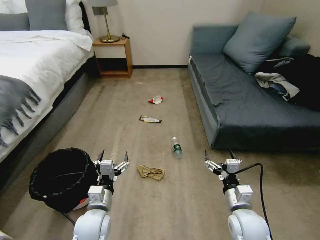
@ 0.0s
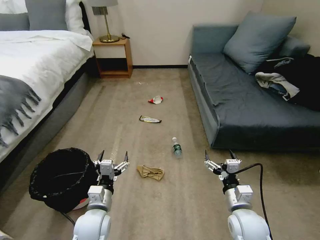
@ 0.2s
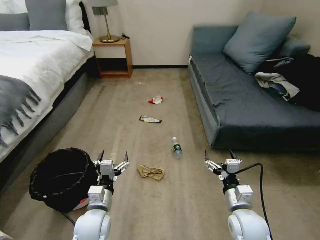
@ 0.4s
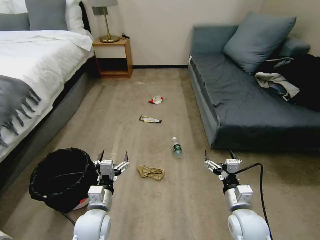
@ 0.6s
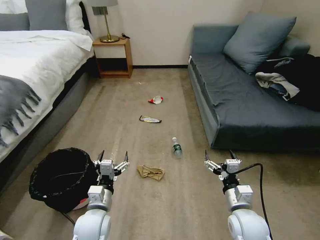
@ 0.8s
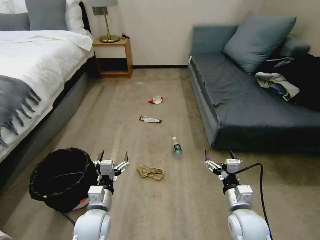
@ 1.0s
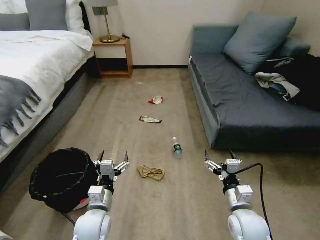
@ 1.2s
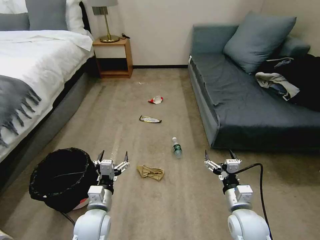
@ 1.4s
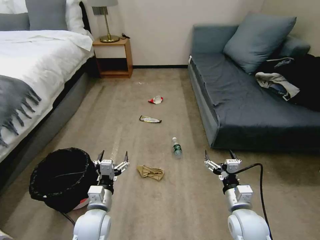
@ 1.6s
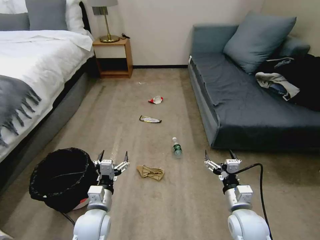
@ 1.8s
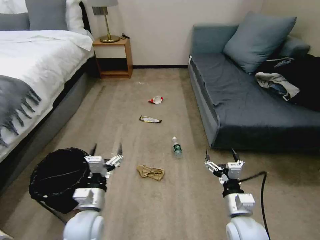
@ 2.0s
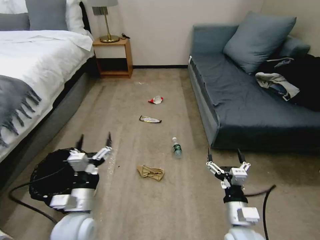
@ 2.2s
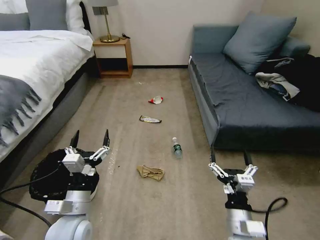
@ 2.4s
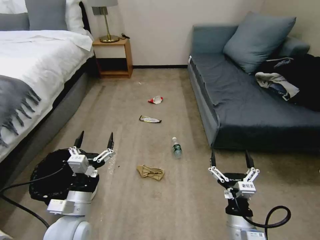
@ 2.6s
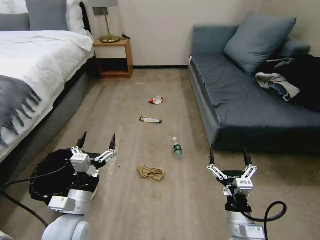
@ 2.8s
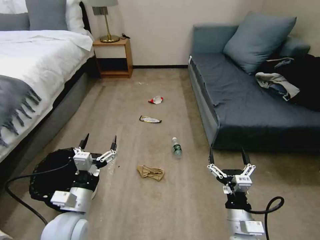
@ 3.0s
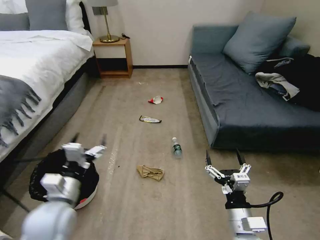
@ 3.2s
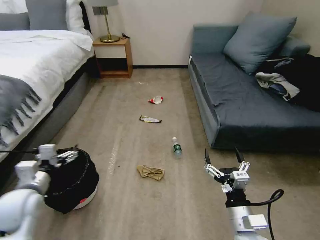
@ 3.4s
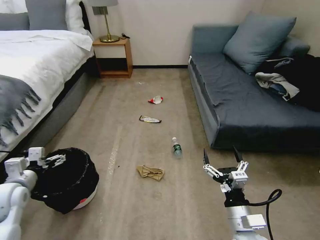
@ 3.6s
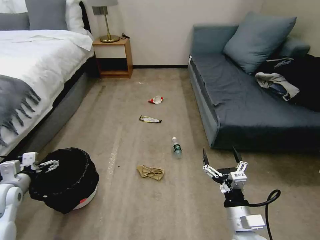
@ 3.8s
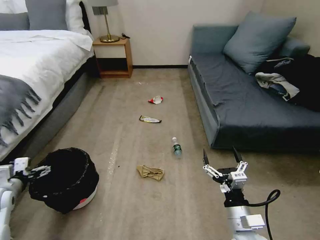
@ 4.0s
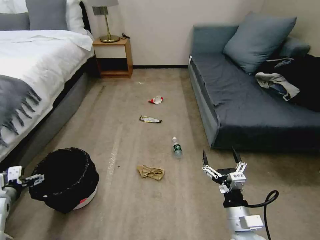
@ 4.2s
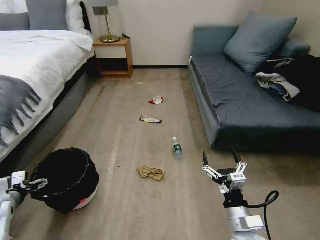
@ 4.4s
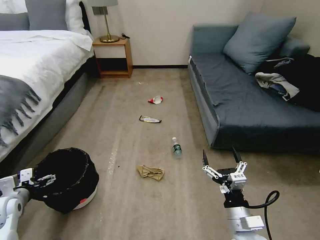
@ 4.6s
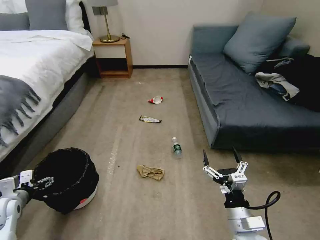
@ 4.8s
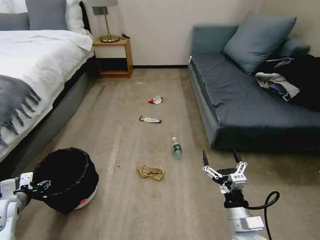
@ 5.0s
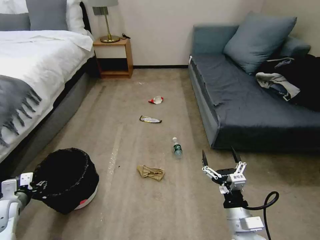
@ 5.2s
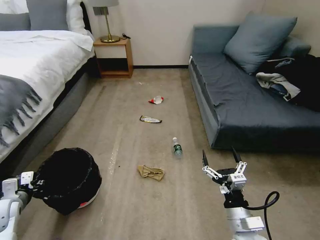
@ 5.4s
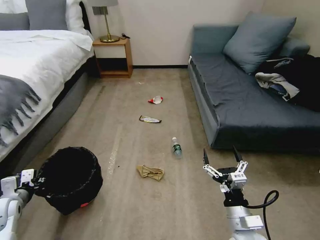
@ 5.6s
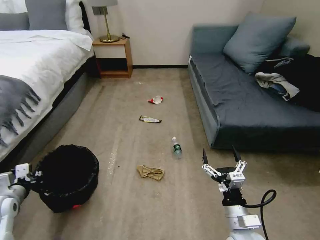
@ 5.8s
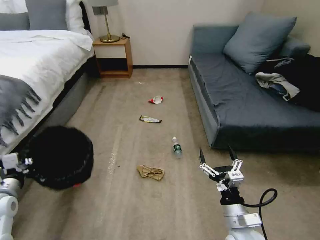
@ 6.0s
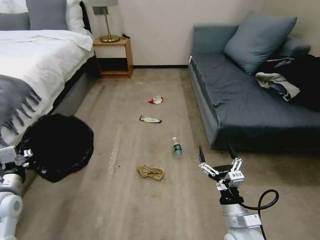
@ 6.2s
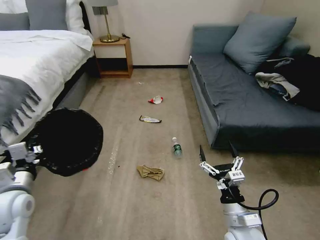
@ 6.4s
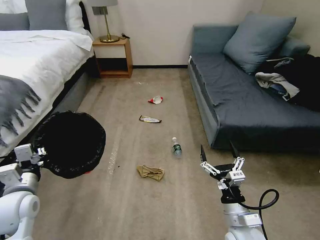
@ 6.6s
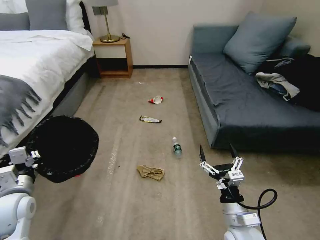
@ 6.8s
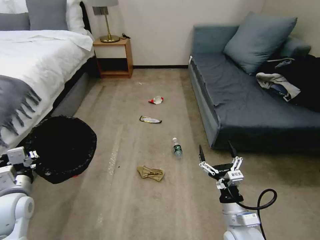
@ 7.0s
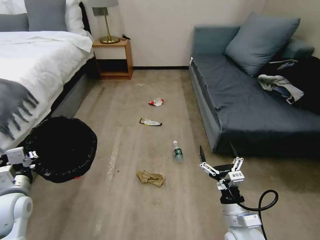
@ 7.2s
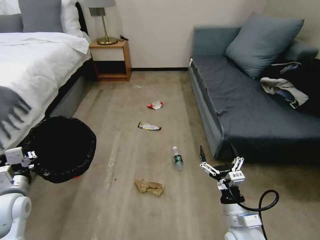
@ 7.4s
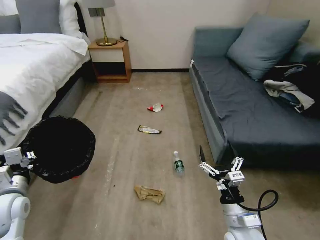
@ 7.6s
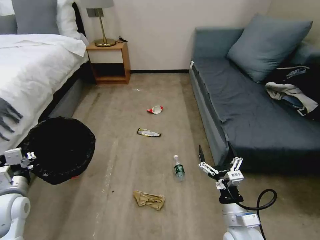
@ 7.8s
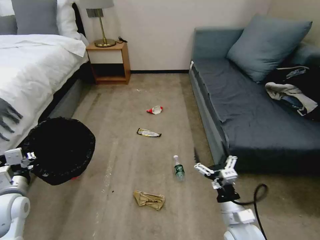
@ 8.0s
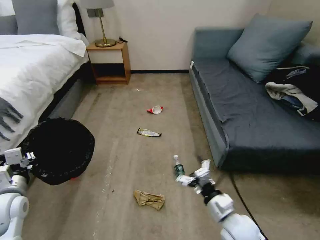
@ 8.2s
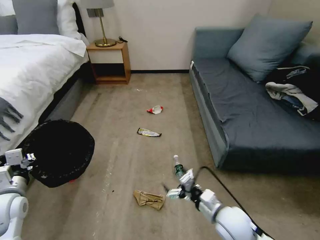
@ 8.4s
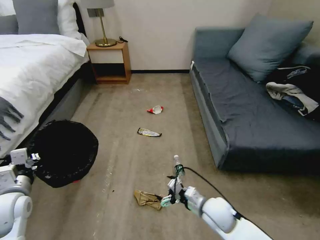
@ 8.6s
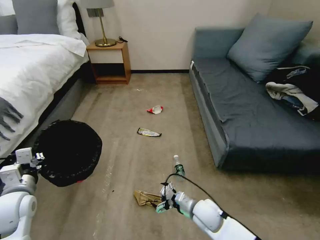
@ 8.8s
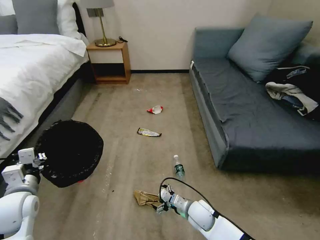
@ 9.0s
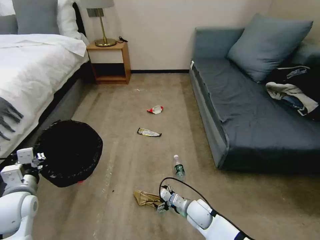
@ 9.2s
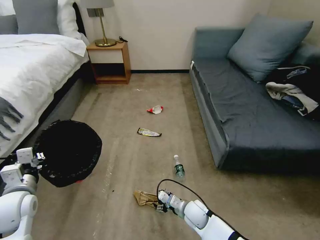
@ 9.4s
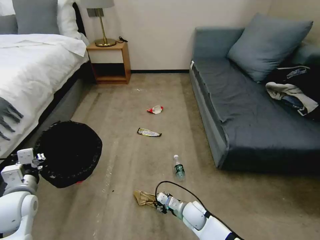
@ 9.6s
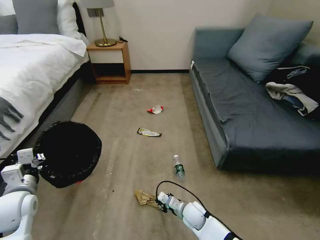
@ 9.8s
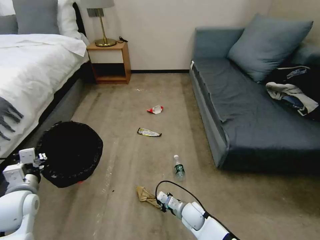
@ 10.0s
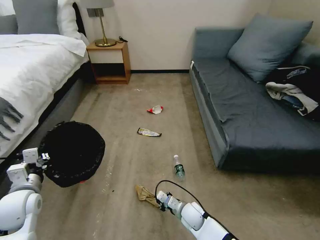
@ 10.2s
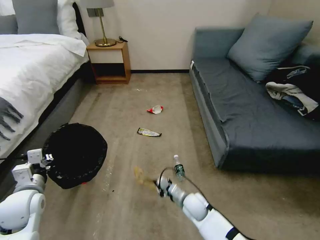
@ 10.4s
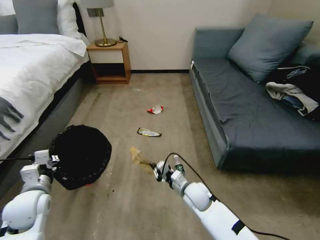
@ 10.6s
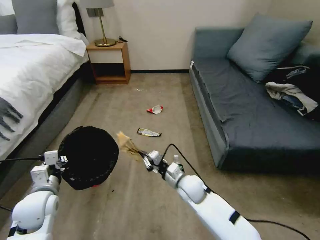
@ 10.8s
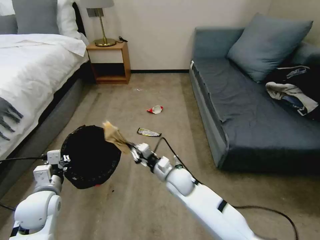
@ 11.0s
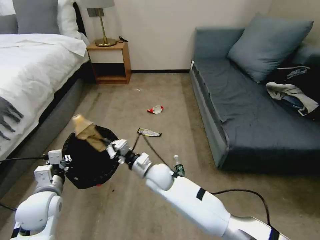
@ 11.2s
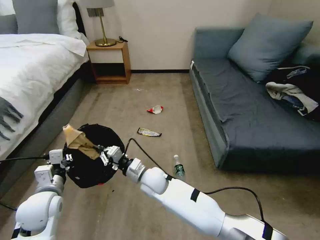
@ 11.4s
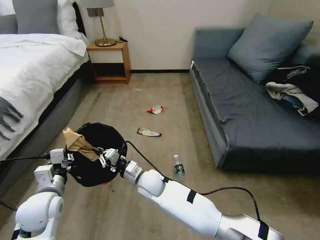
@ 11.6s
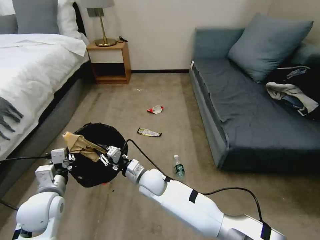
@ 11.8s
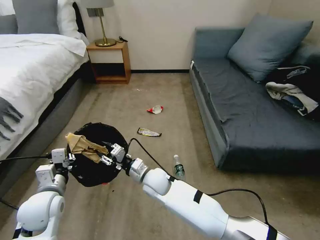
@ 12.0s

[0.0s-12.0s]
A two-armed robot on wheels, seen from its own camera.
Task of the whole recording: Pick up the trash bin, then pick up the garbage on the floor and place it into the trash bin.
1.6s to 3.0s: The right gripper shifts approximately 5 cm backward. The left gripper heads upward, covering about 10 cm.
3.0s to 4.4s: The left gripper goes about 25 cm to the left.
4.4s to 6.0s: The left gripper travels upward by roughly 5 cm, and closes up.
7.6s to 9.0s: The right gripper is displaced downward, forward and to the left by some 15 cm.
9.0s to 10.4s: The right gripper closes up.
10.4s to 12.0s: The left gripper is displaced to the right by roughly 5 cm. Meanwhile the right gripper is displaced to the left and upward by about 20 cm, and opens its fingers.

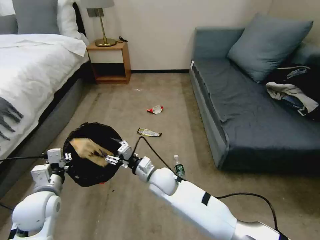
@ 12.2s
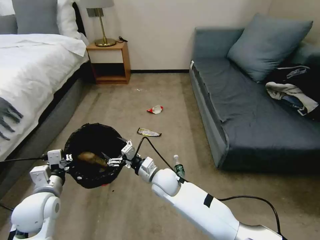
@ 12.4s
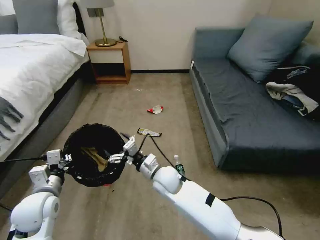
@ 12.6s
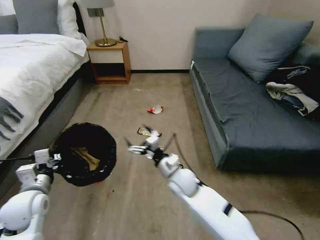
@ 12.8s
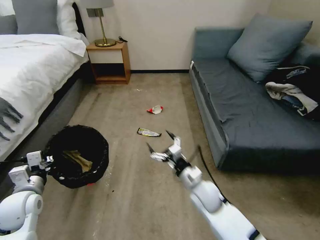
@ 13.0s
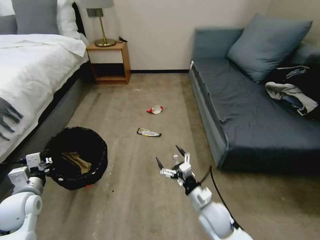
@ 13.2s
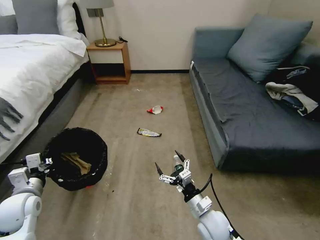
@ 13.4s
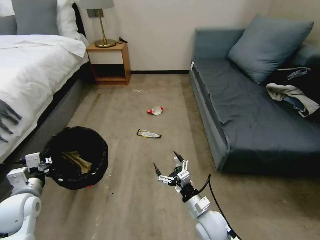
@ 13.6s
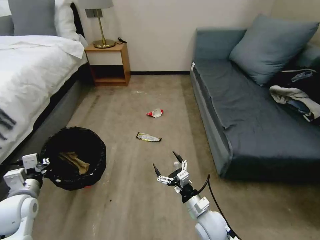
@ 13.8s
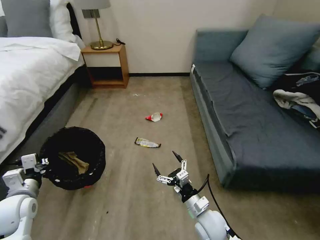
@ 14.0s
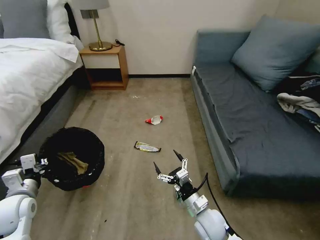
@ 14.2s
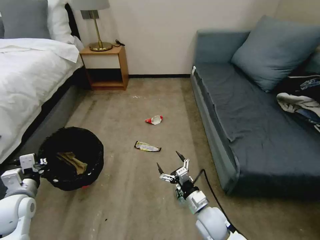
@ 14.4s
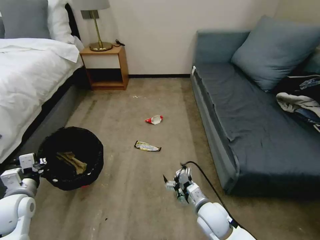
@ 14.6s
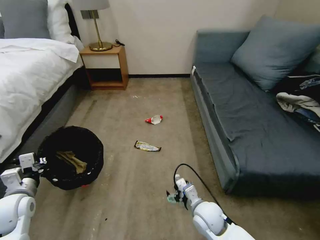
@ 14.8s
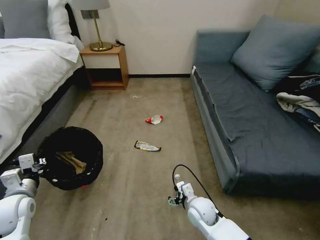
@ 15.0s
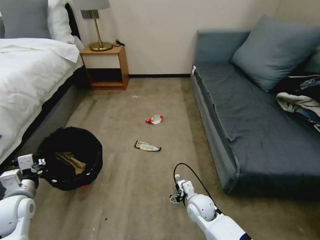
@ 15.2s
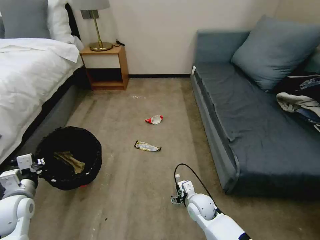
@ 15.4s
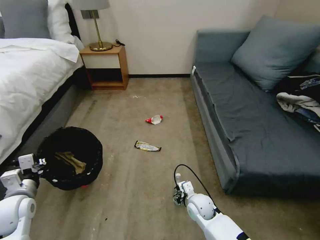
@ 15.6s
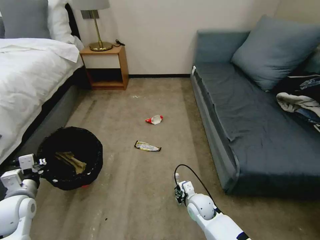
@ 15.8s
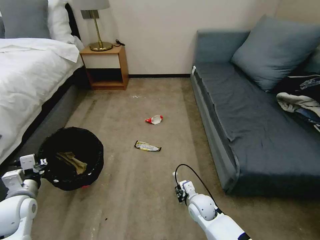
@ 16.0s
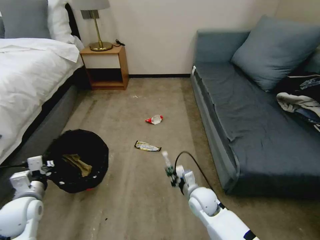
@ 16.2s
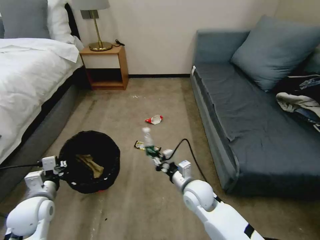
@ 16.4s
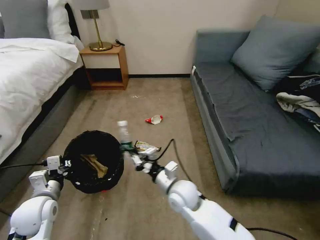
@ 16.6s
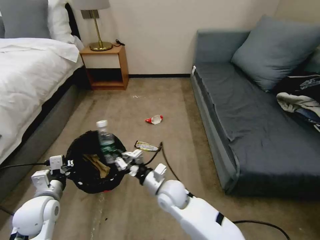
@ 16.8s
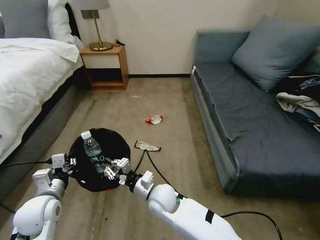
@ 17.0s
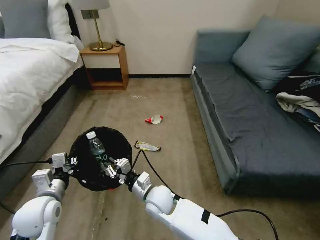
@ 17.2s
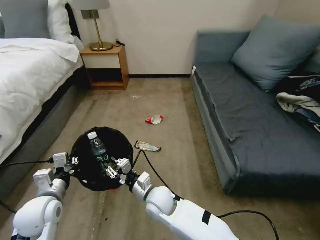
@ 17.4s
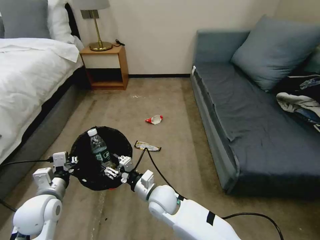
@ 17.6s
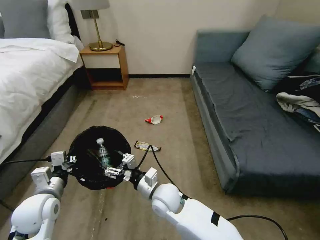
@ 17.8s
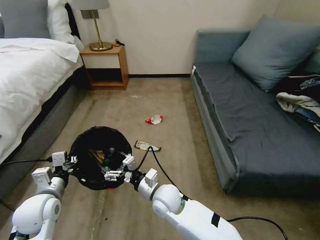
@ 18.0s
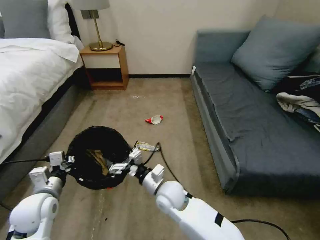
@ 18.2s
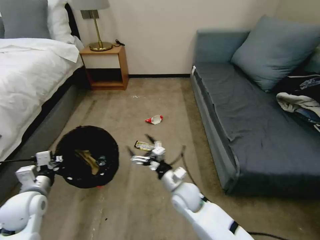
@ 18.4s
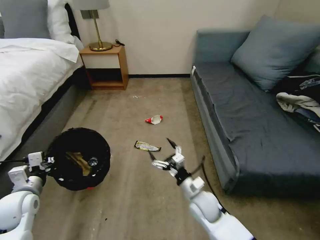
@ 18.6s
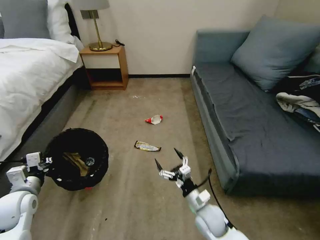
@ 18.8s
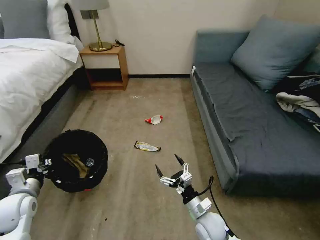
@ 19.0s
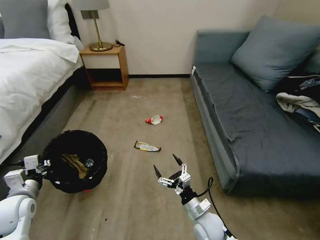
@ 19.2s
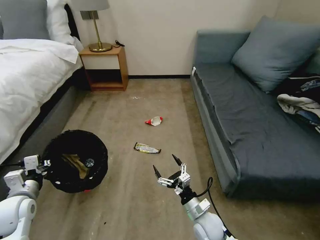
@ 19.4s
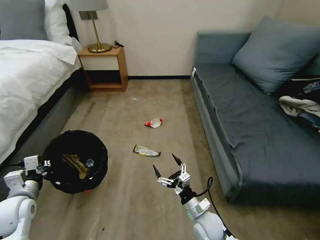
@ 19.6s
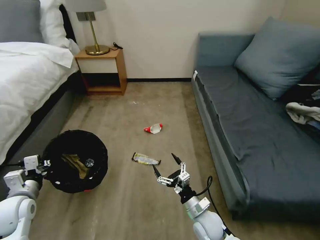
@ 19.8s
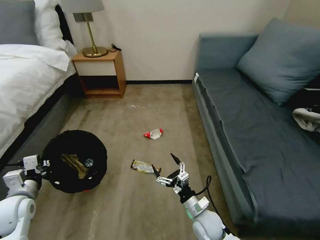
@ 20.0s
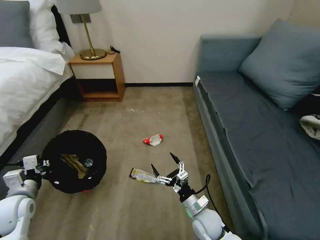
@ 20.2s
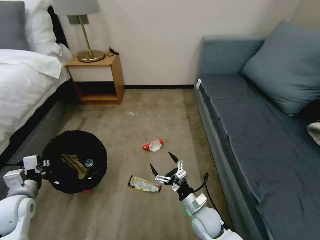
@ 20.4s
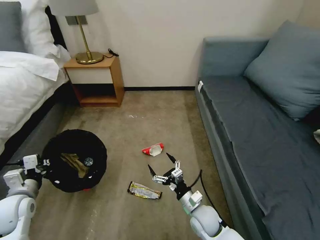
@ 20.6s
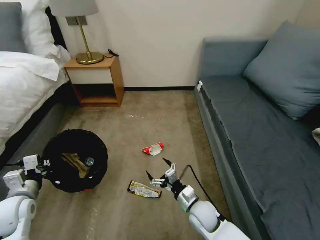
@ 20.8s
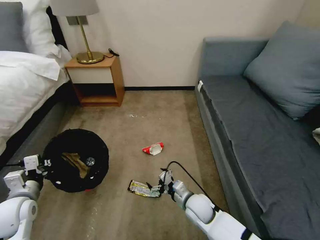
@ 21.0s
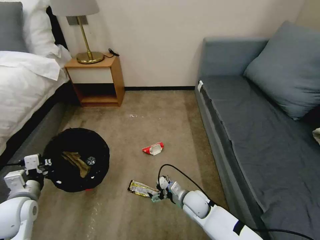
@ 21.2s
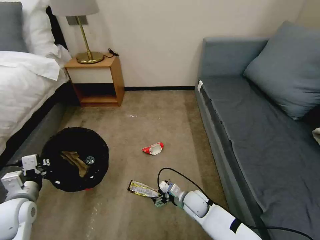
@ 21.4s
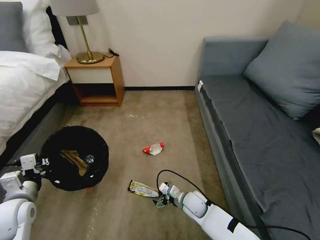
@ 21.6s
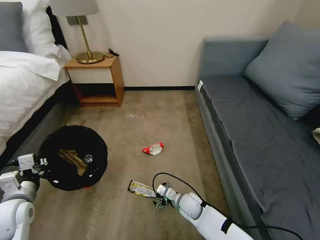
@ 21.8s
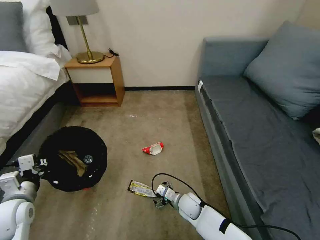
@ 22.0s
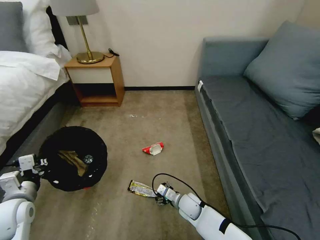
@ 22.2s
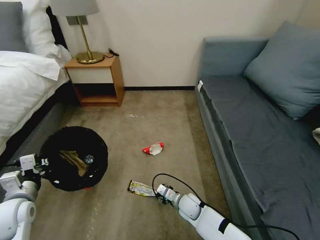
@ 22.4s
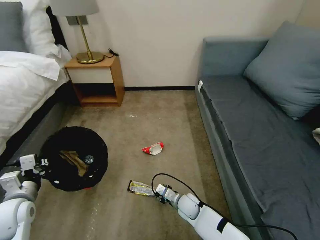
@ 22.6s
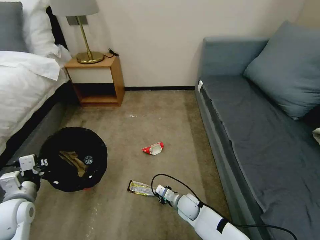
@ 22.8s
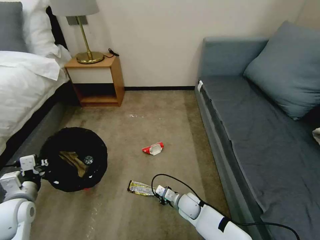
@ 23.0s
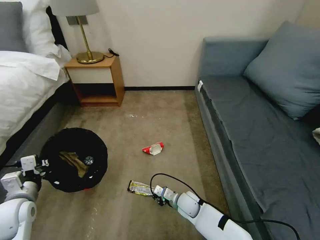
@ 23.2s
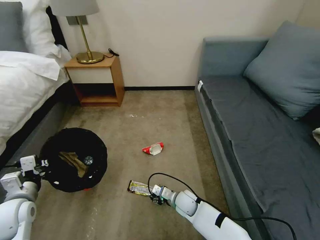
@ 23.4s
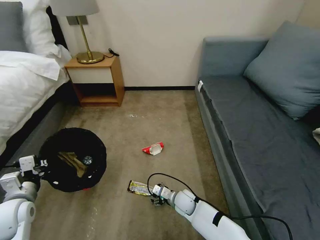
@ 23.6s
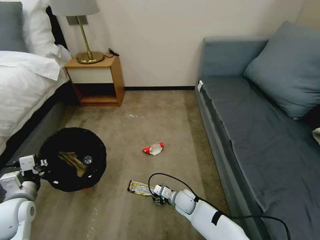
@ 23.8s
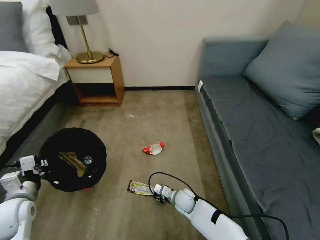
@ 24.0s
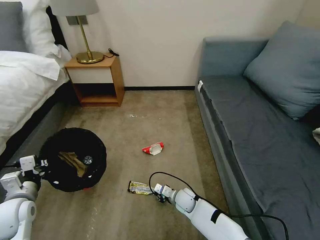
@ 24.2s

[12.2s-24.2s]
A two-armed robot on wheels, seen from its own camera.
Task of the whole recording: Pick up the trash bin, then pick up the garbage on the floor and place it into the trash bin.
12.2s to 13.8s: The left gripper moves to the left, some 5 cm. The right gripper shifts roughly 20 cm to the right, backward and downward.
13.8s to 15.2s: The right gripper shifts some 5 cm forward.
15.2s to 16.6s: The right gripper moves upward and to the left, some 15 cm, and closes its fingers. Meanwhile the left gripper travels to the right by some 5 cm.
16.6s to 18.2s: The right gripper opens up.
18.2s to 19.8s: The left gripper heads to the left, covering some 5 cm. The right gripper heads to the right, downward and backward, covering some 20 cm.
19.8s to 21.2s: The right gripper moves forward, approximately 5 cm.
21.2s to 22.6s: The right gripper is displaced downward by some 5 cm, and closes.
22.6s to 24.2s: The right gripper opens, then closes again.
